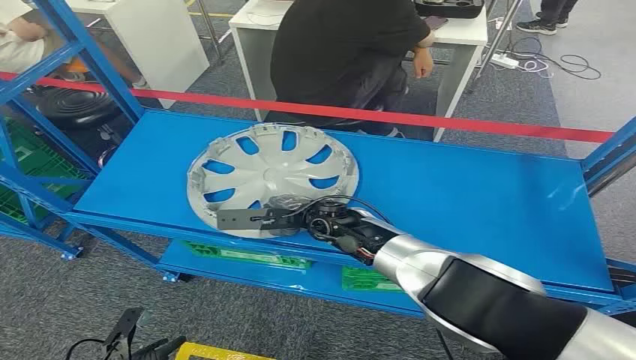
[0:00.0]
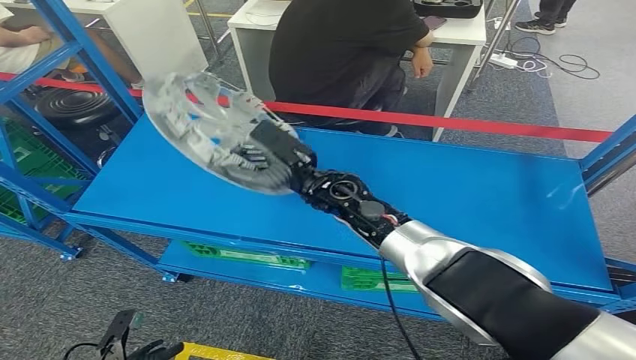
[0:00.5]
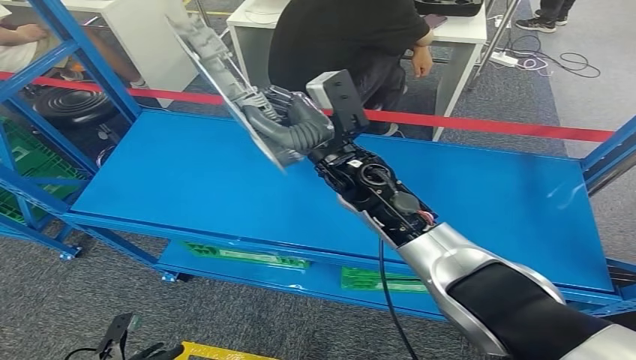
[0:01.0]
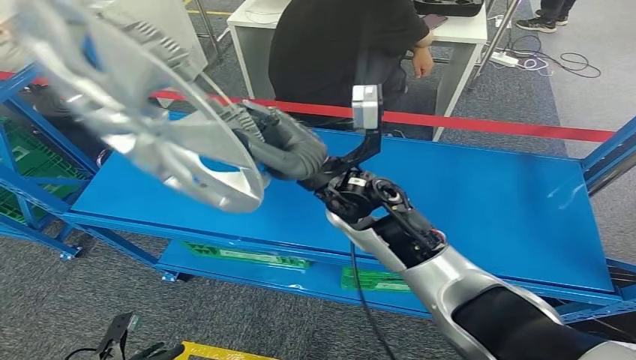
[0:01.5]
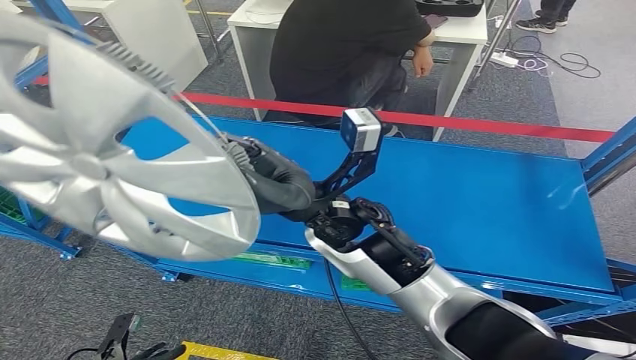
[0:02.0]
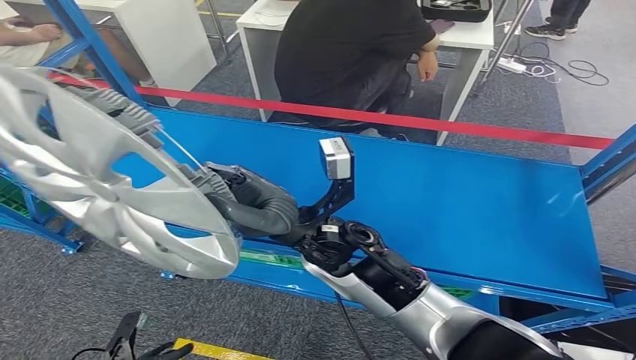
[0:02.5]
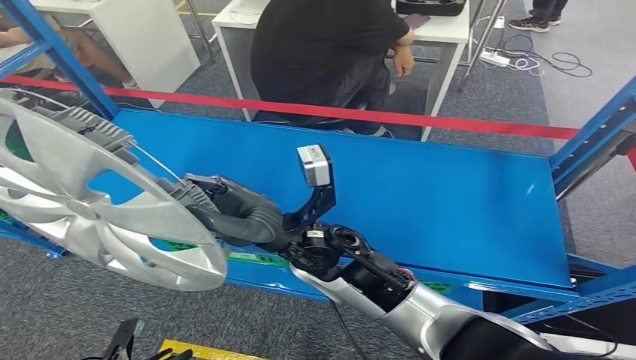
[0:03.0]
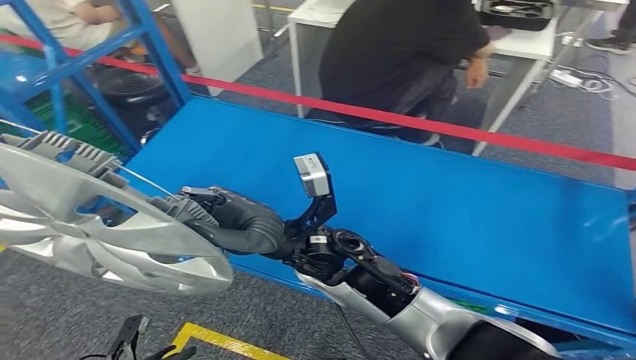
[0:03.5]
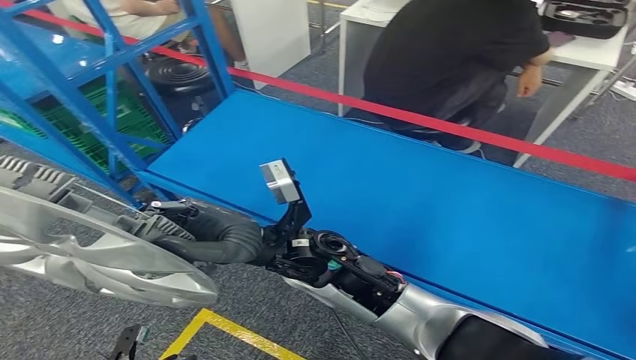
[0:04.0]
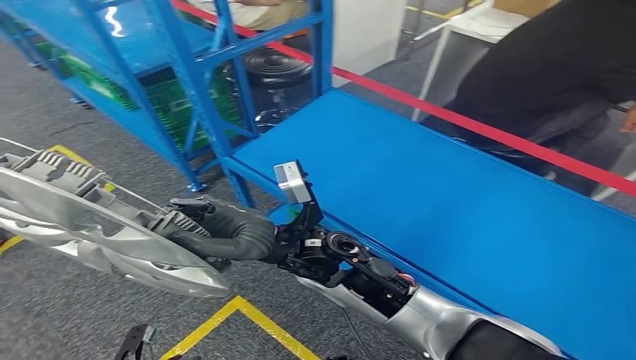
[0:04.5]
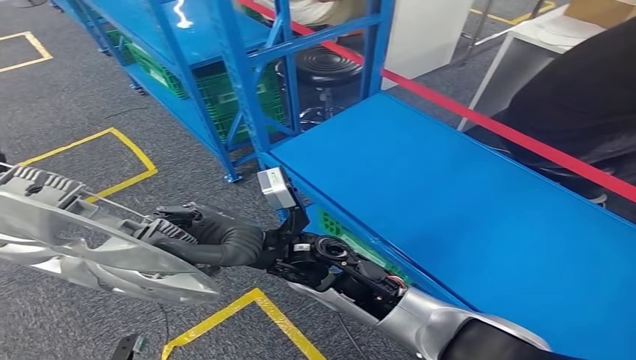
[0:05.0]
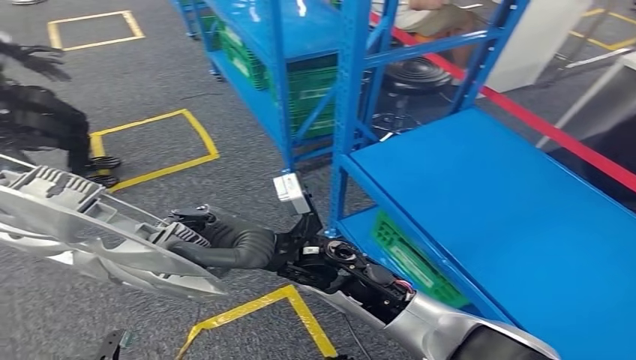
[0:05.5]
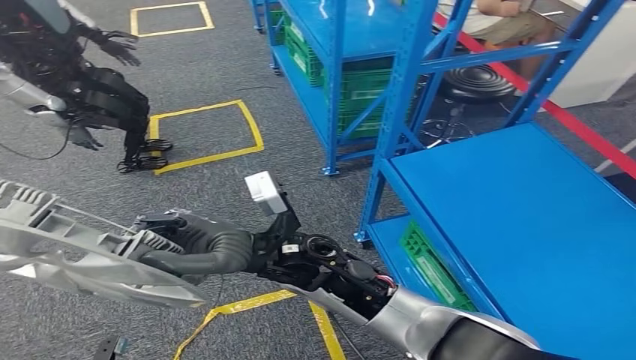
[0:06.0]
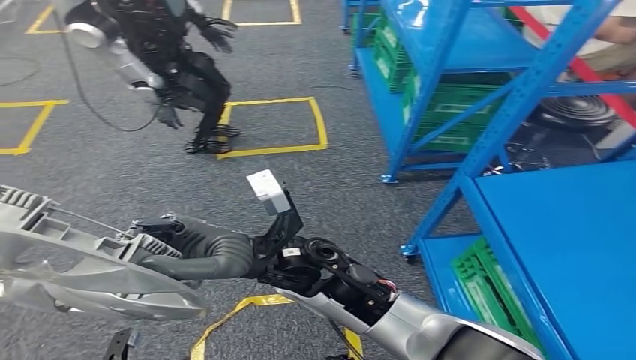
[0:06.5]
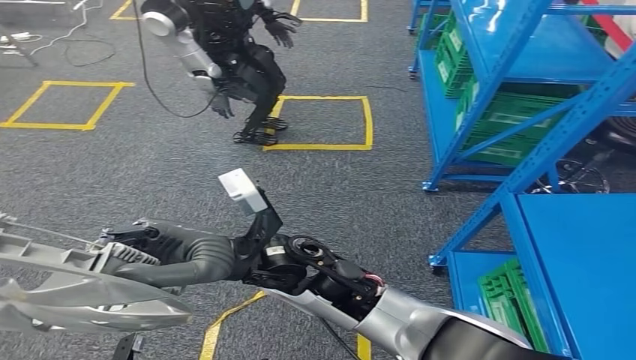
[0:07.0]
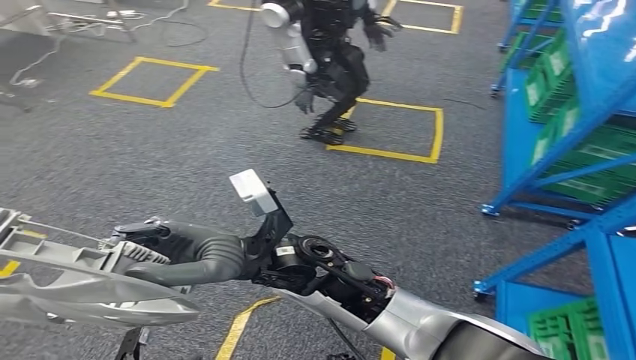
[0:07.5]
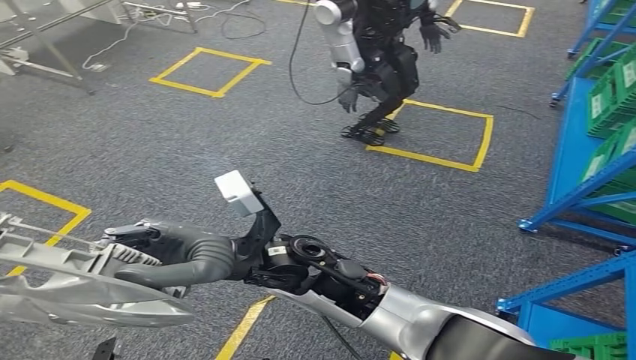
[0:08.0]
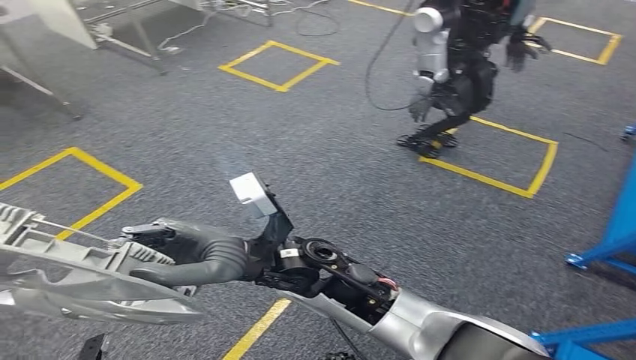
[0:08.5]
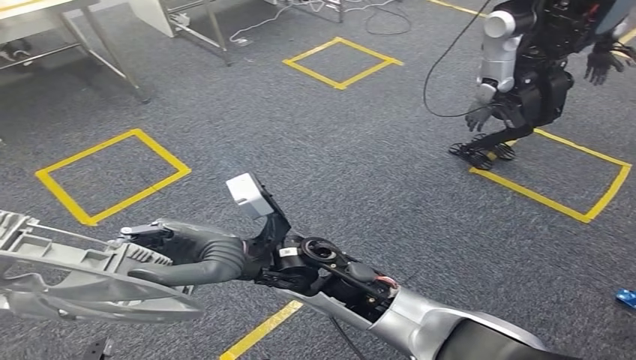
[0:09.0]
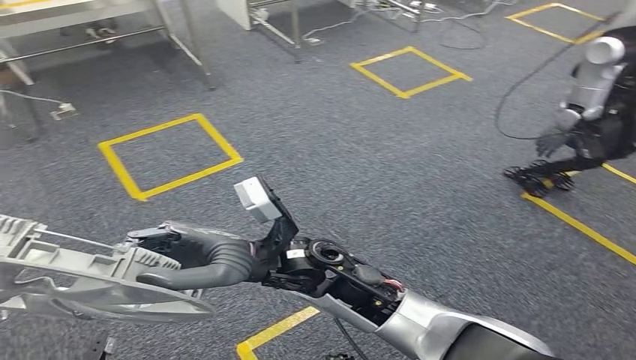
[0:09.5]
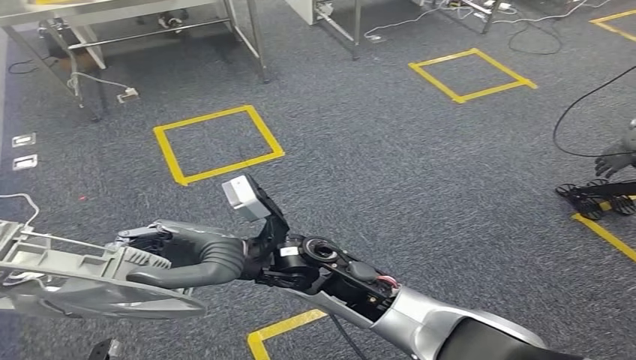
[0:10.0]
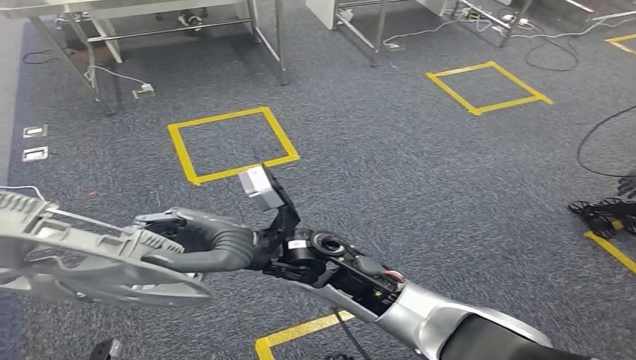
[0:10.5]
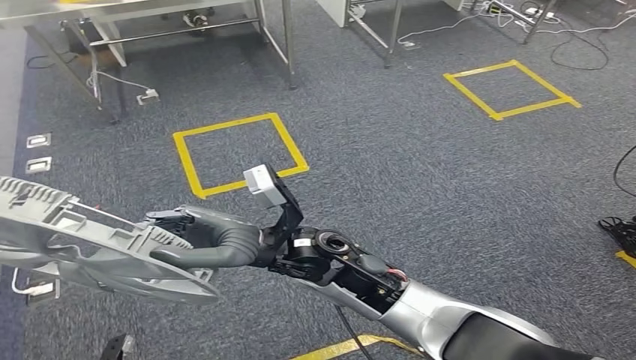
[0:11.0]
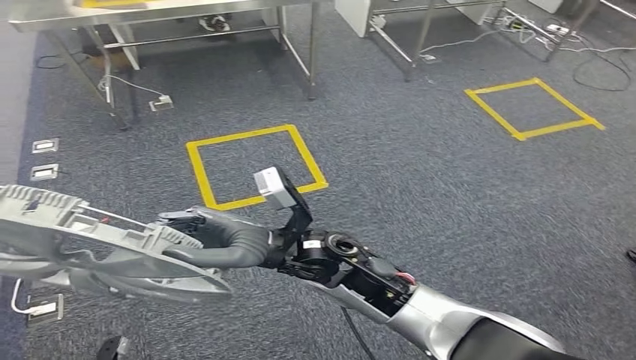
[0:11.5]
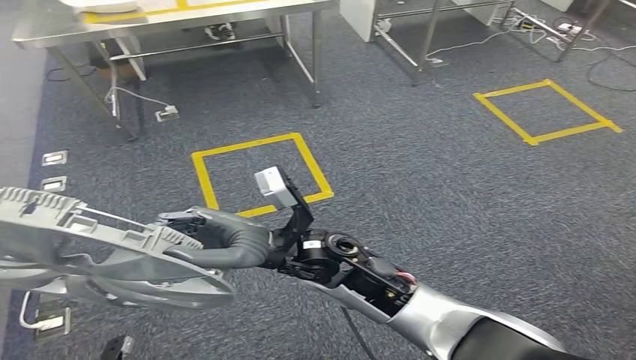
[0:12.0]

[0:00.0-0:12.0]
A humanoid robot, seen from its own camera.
Step, 0:00.0 to 0:06.5: Pick up the small component from the shelf.

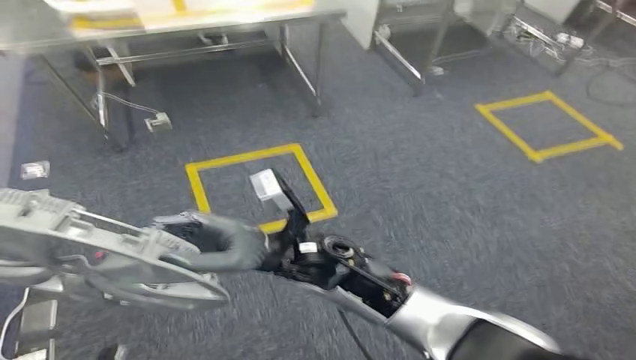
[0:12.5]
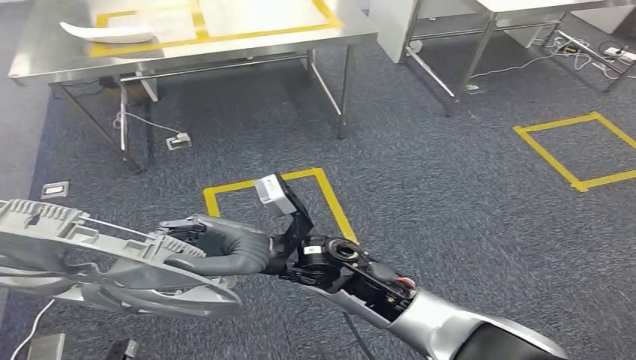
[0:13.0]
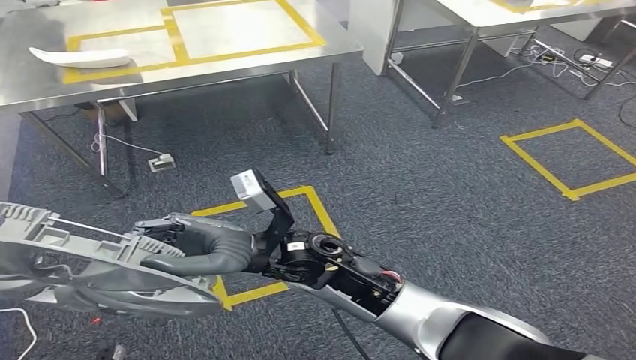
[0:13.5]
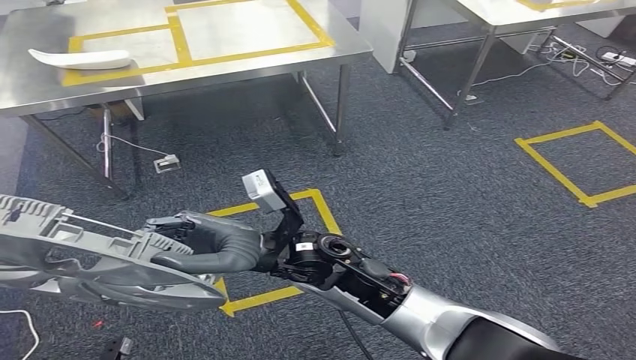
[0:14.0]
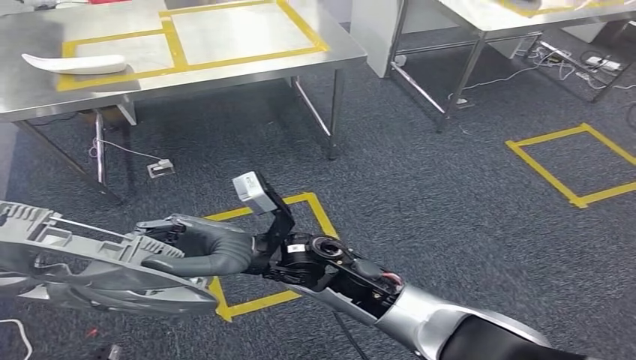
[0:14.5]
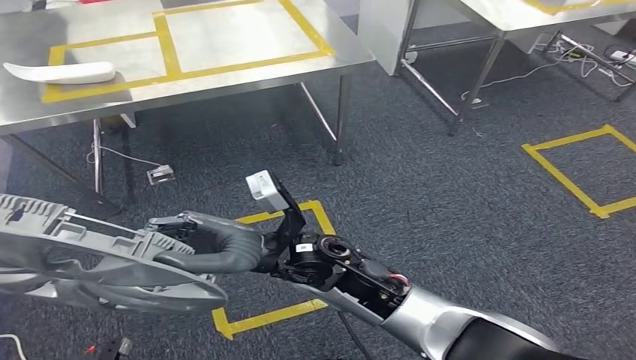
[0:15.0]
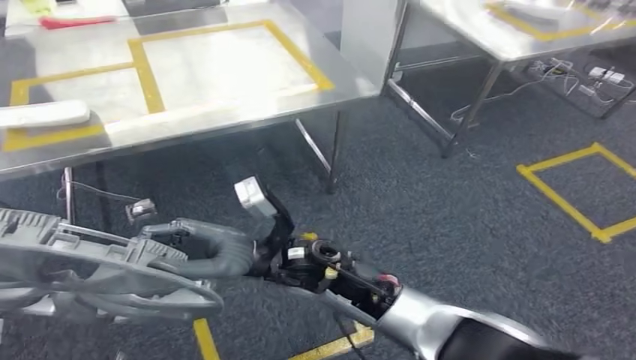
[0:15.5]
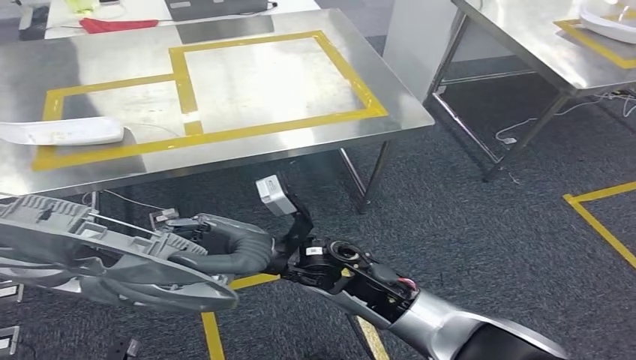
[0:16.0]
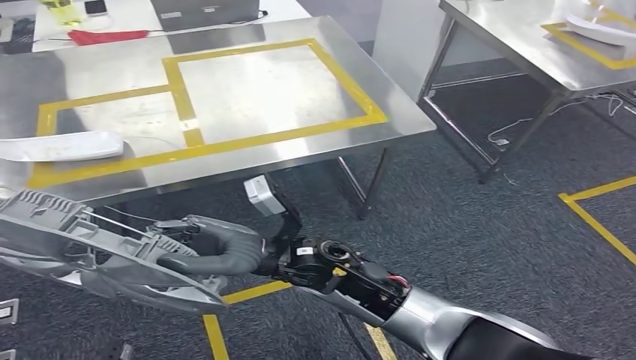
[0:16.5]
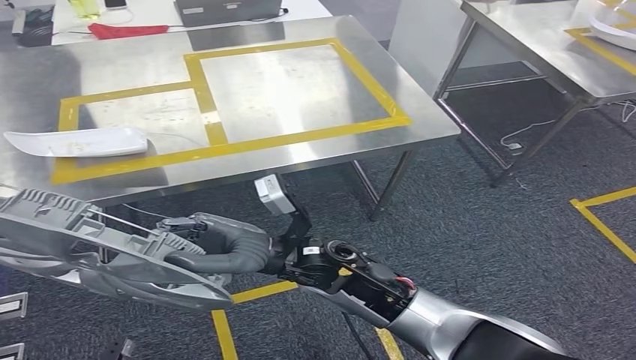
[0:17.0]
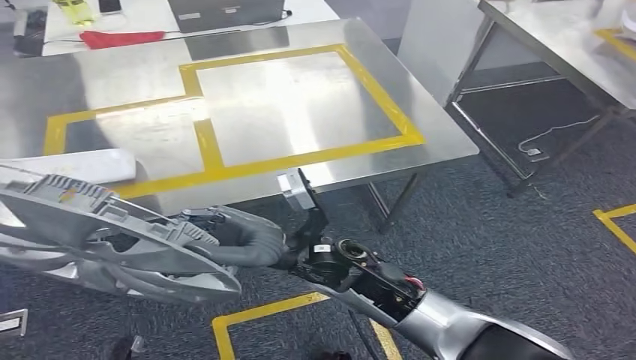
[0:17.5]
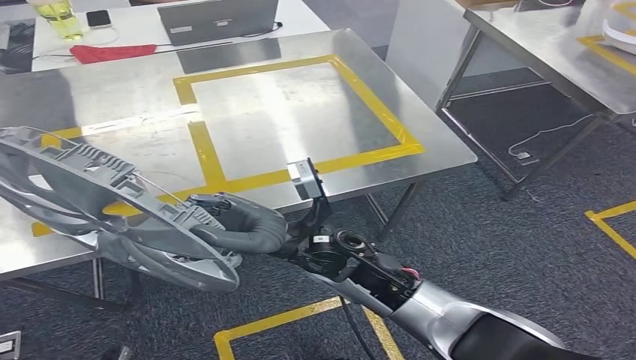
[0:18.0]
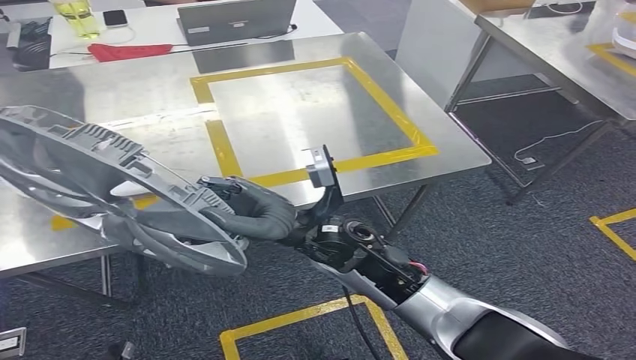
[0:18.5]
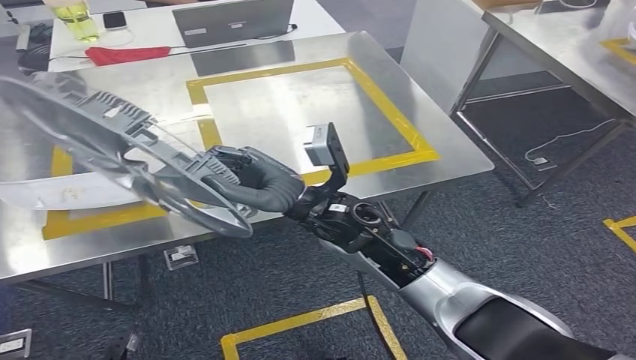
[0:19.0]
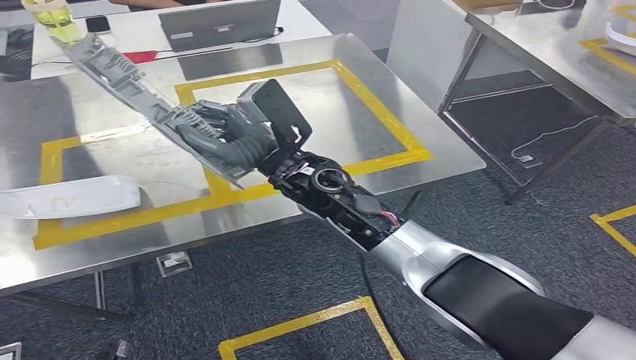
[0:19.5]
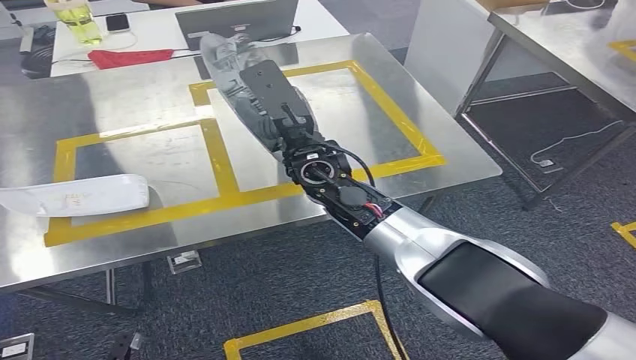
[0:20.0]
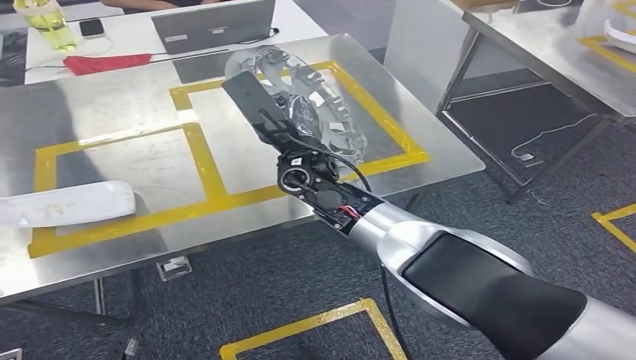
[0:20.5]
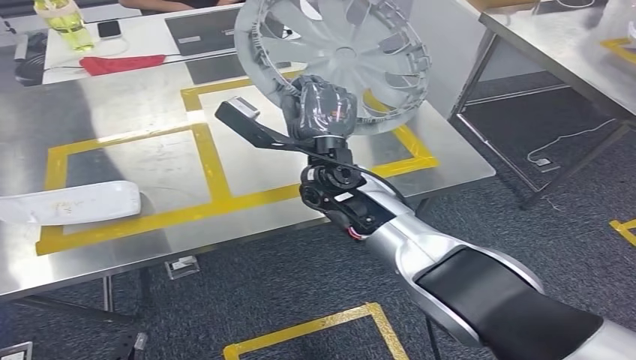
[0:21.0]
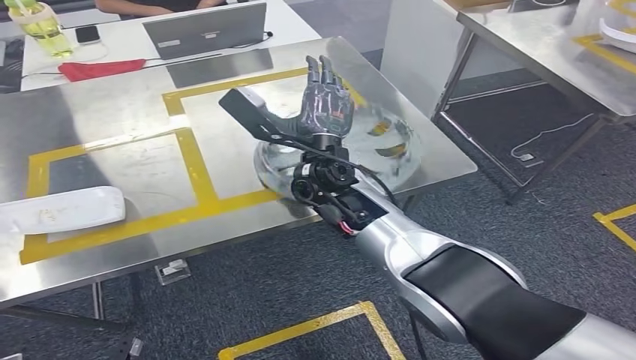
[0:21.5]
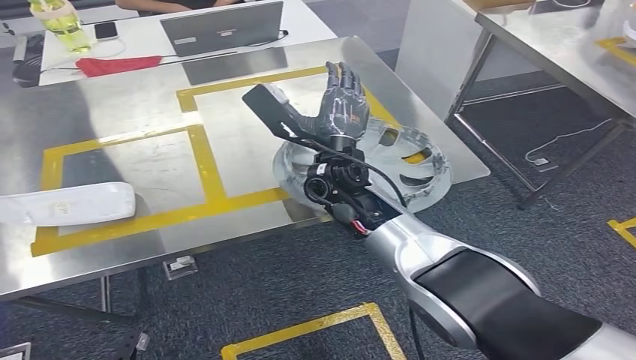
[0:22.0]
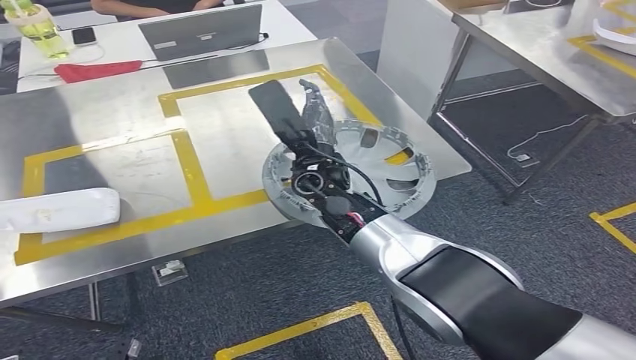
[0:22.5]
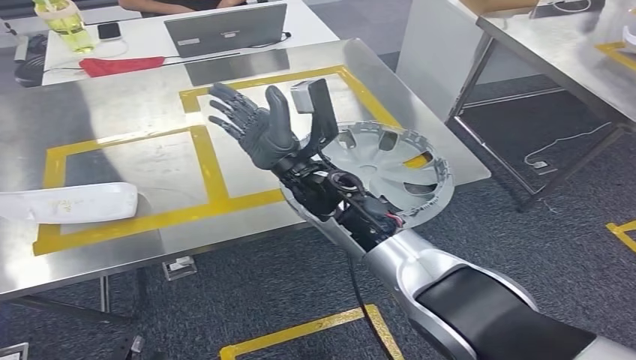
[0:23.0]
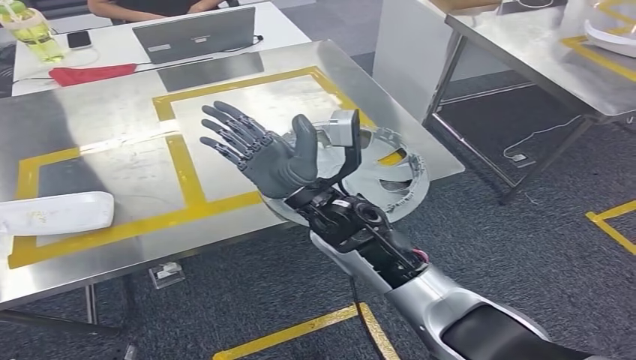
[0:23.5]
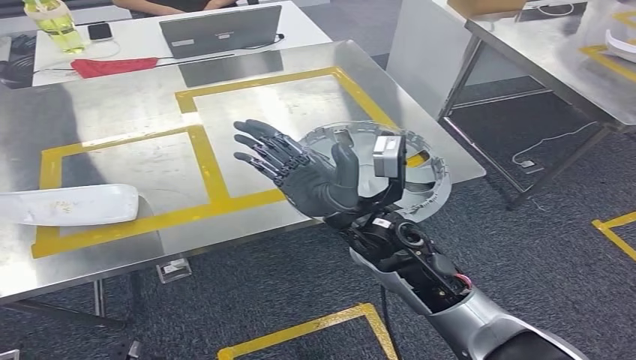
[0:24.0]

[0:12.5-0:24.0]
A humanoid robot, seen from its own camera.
Step, 0:12.5 to 0:18.5: Bring the small component to the front of the workbench.
